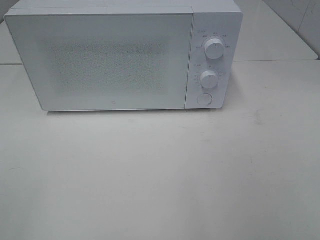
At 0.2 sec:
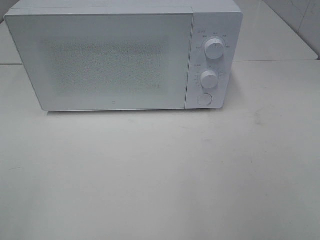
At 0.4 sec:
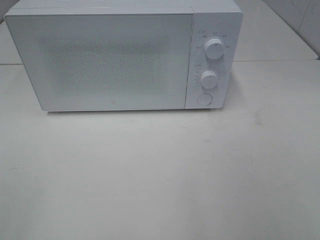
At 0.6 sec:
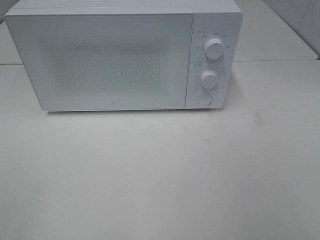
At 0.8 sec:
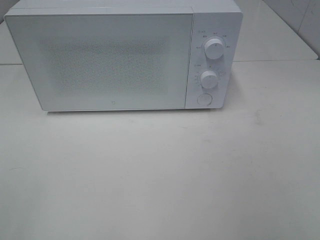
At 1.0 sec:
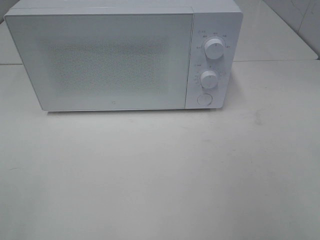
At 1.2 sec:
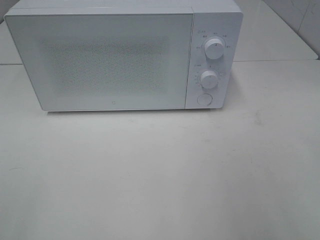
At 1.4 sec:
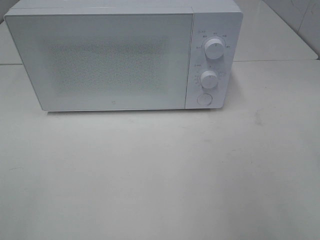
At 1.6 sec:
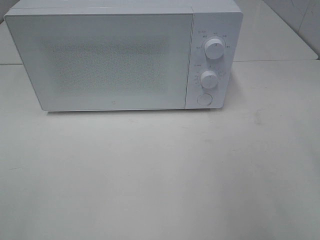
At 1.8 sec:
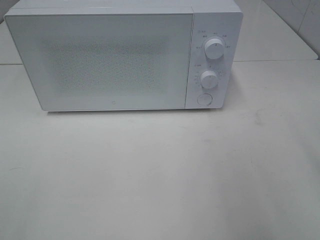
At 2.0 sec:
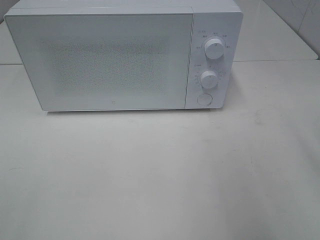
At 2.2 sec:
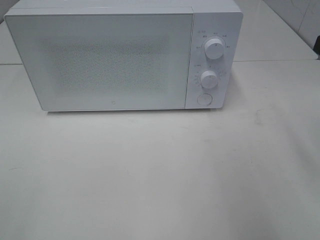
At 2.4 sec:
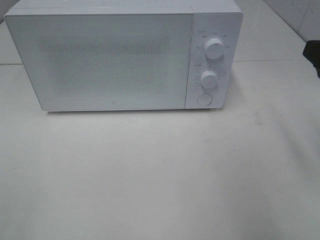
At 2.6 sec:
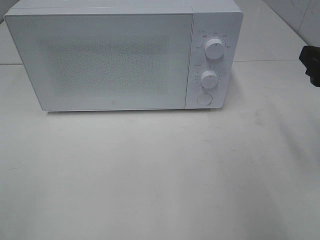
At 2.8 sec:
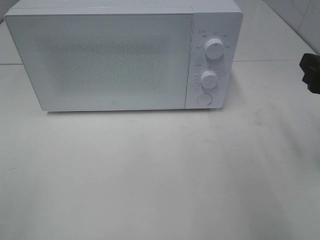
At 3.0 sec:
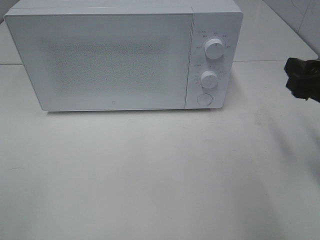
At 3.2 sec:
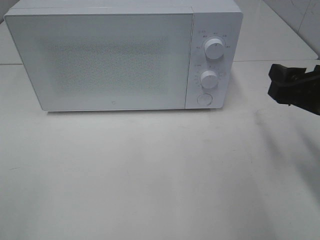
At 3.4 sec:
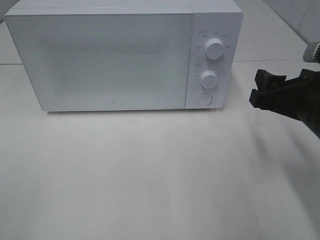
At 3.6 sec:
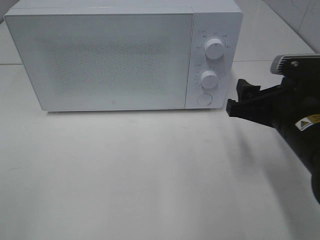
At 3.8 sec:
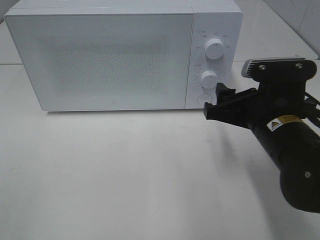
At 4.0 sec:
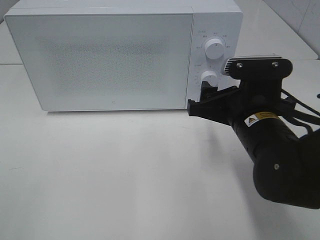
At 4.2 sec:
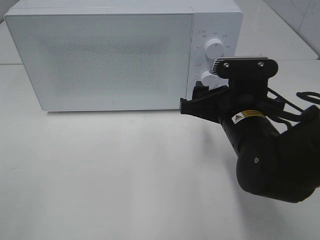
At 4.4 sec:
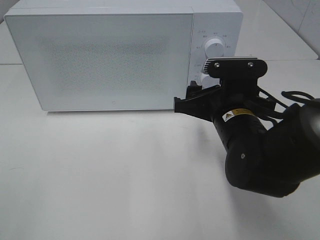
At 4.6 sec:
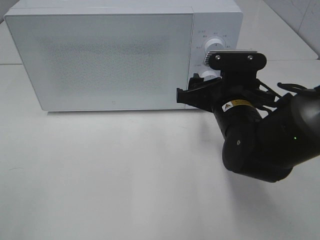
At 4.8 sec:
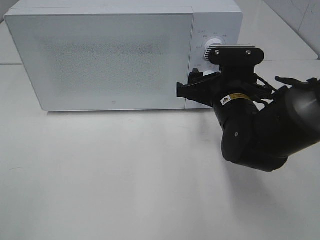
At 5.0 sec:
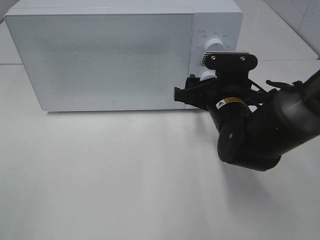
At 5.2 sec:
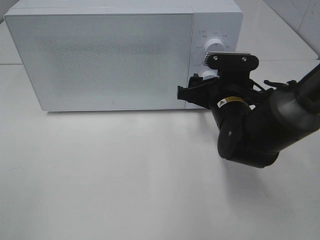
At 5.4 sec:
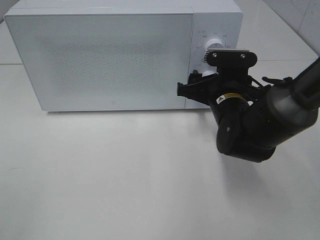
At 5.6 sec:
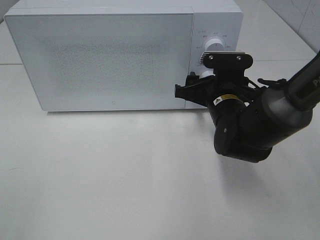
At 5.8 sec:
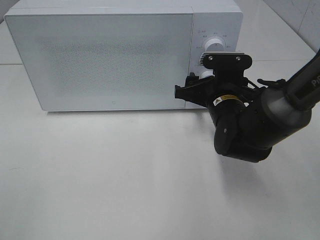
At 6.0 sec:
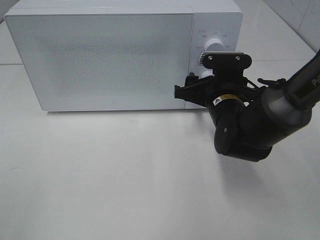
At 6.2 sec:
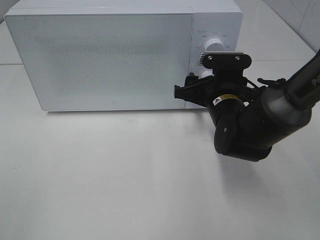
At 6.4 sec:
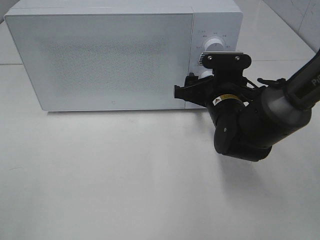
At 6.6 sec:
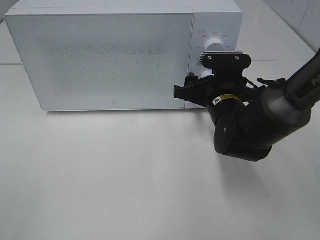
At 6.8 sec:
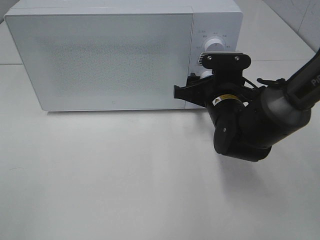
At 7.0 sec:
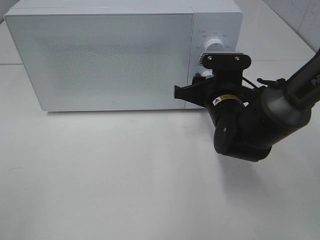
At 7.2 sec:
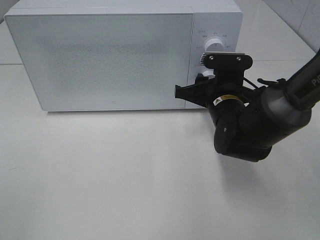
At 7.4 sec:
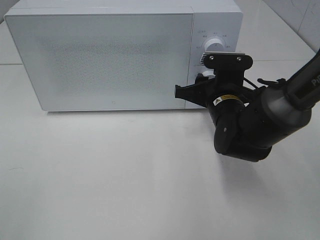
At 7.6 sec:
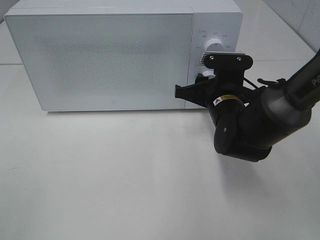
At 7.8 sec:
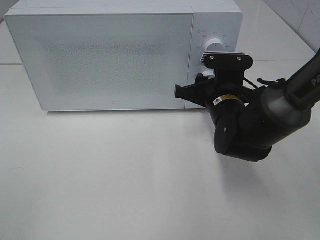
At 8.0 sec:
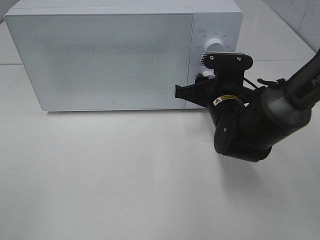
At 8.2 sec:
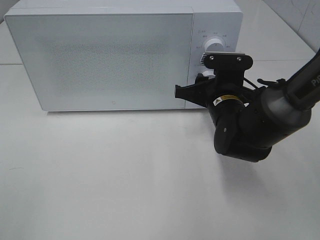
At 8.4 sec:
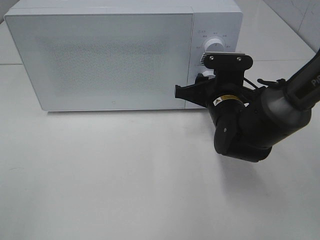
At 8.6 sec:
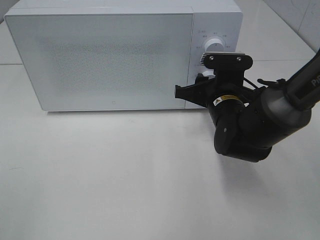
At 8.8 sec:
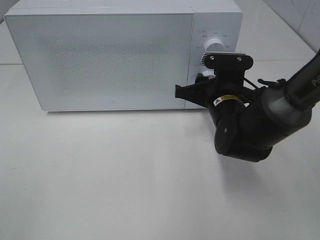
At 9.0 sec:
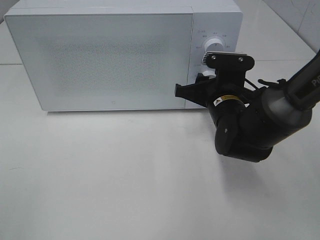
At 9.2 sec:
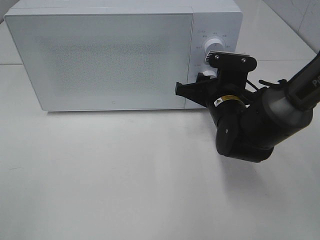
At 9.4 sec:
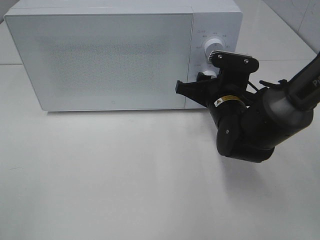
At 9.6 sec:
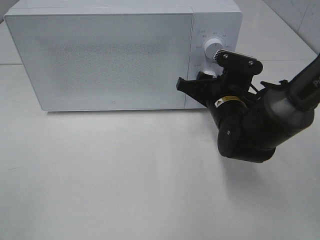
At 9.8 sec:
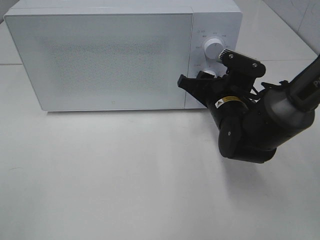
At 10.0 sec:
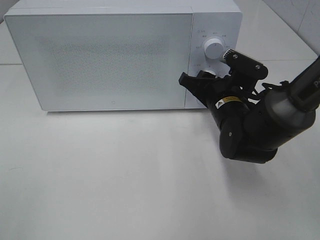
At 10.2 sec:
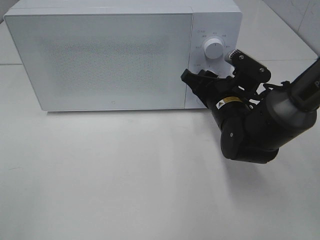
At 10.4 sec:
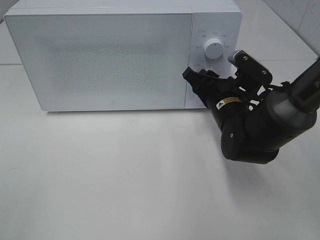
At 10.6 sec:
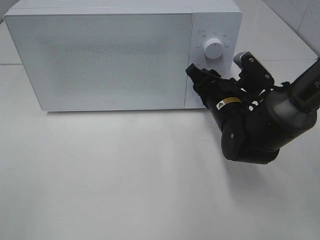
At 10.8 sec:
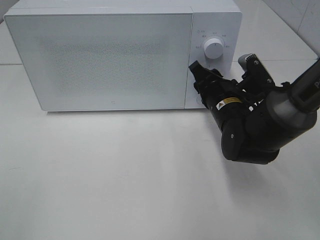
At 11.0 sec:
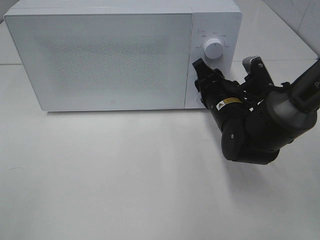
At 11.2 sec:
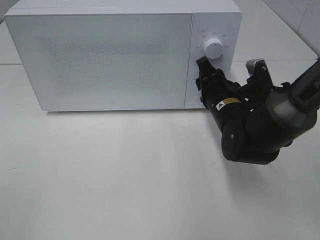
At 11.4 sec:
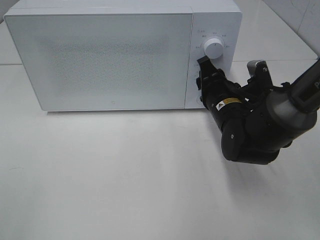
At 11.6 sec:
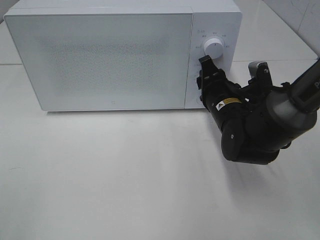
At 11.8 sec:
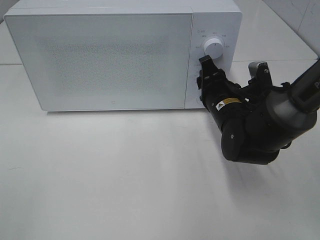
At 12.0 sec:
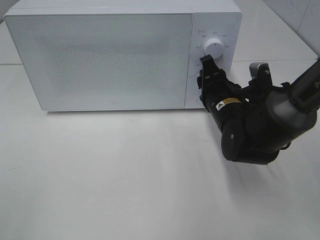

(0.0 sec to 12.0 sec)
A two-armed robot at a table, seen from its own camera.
Task of the whole recording: Heat the burger.
1.6 sec - 3.0 sec: The right gripper travels downward and forward by roughly 15 cm.
3.0 sec - 4.4 sec: The right gripper goes about 15 cm to the left and downward.
4.4 sec - 6.0 sec: The right gripper heads forward, covering some 5 cm.
6.0 sec - 7.6 sec: The right gripper closes up.
7.6 sec - 9.0 sec: Both grippers stay put.

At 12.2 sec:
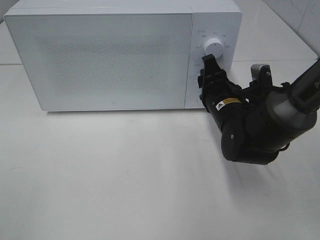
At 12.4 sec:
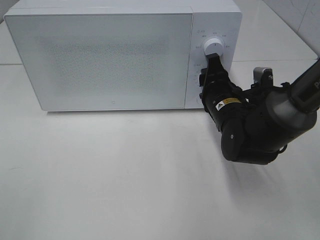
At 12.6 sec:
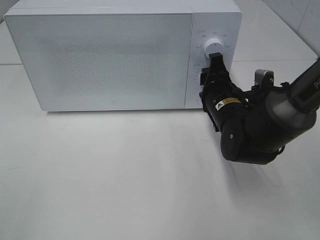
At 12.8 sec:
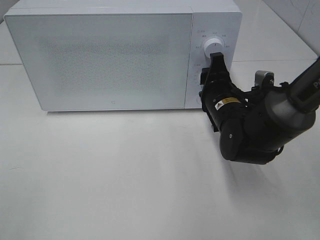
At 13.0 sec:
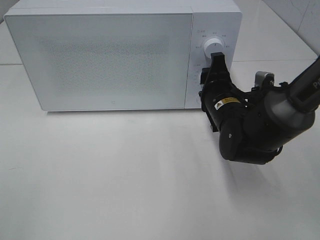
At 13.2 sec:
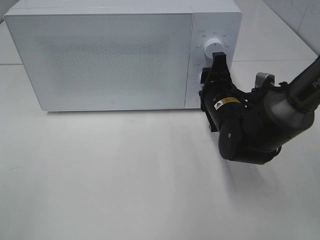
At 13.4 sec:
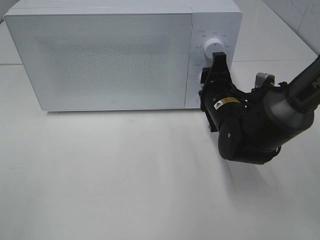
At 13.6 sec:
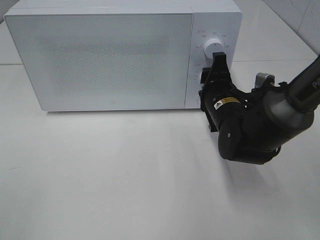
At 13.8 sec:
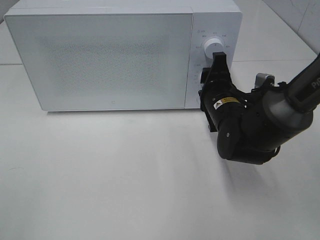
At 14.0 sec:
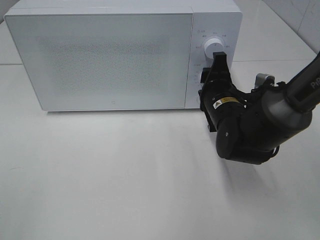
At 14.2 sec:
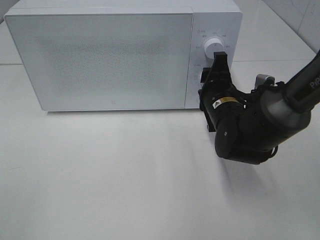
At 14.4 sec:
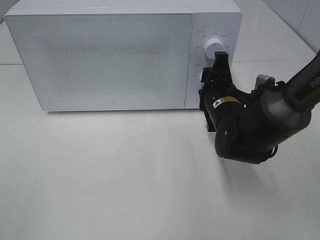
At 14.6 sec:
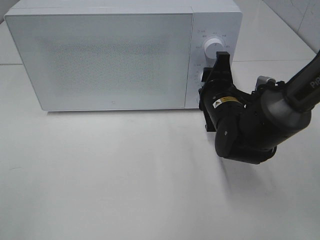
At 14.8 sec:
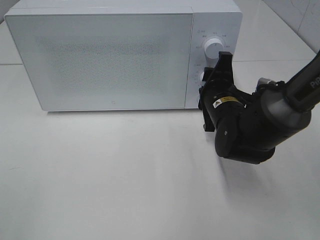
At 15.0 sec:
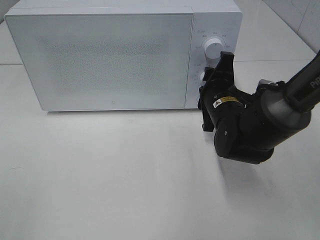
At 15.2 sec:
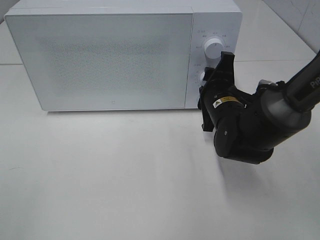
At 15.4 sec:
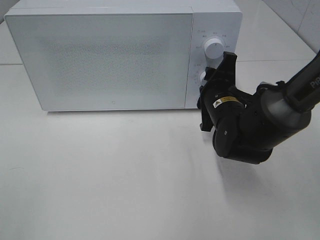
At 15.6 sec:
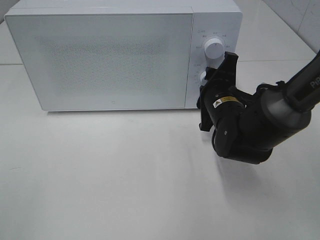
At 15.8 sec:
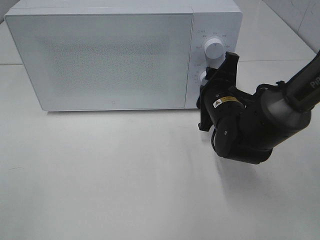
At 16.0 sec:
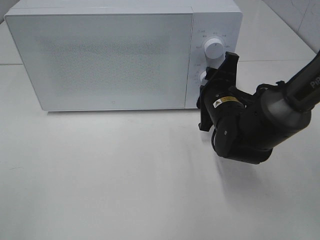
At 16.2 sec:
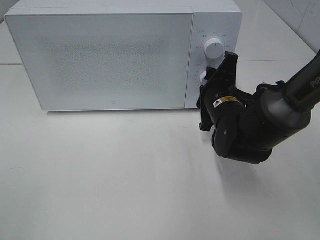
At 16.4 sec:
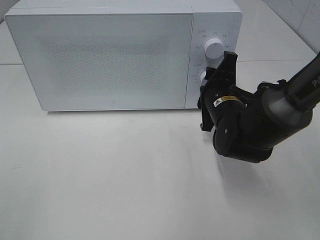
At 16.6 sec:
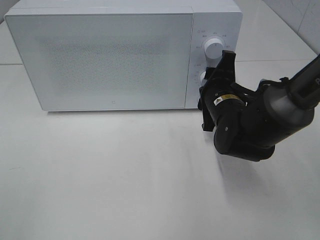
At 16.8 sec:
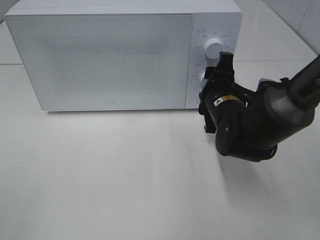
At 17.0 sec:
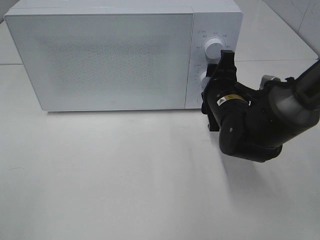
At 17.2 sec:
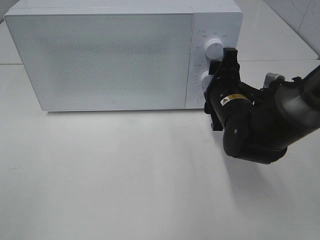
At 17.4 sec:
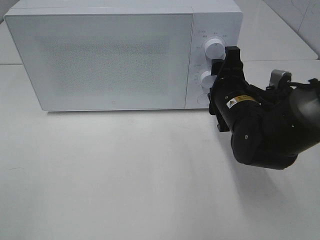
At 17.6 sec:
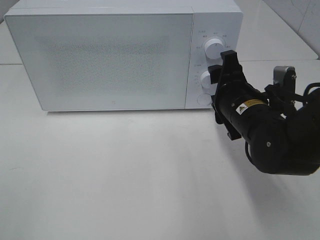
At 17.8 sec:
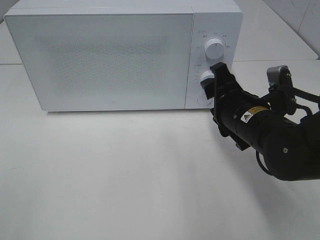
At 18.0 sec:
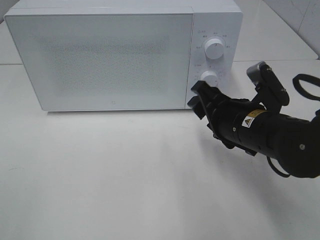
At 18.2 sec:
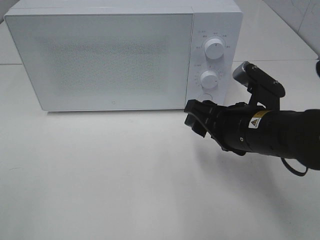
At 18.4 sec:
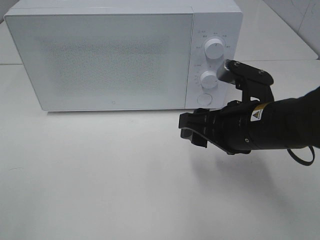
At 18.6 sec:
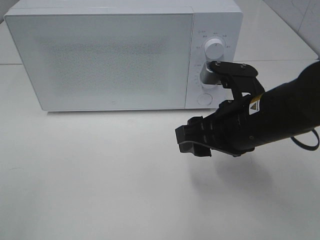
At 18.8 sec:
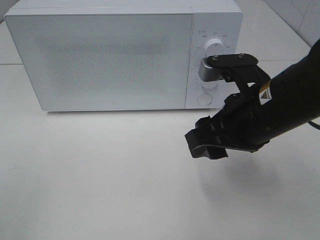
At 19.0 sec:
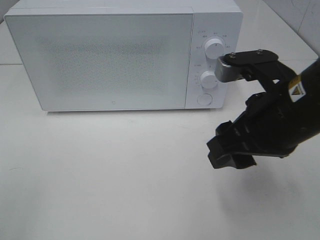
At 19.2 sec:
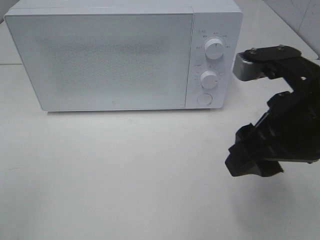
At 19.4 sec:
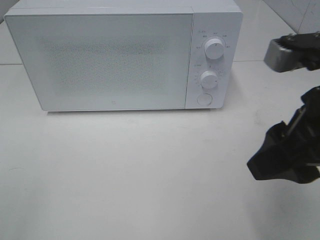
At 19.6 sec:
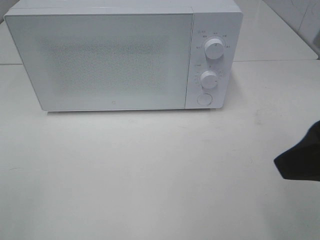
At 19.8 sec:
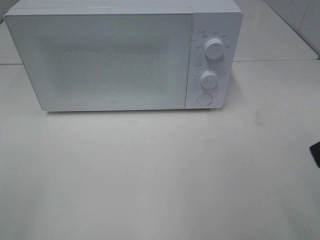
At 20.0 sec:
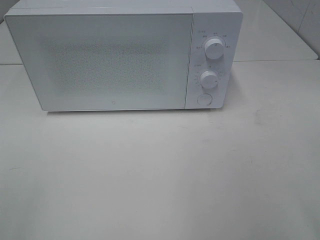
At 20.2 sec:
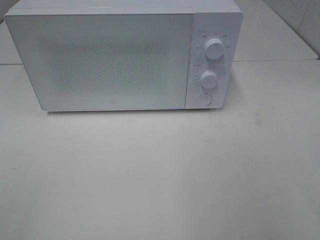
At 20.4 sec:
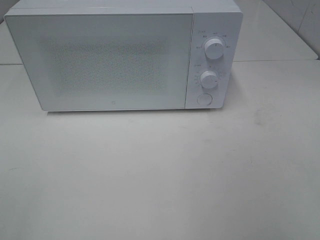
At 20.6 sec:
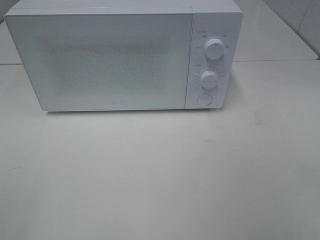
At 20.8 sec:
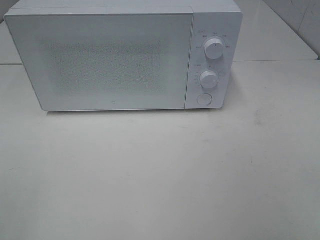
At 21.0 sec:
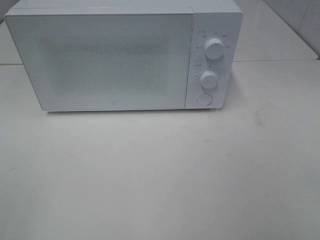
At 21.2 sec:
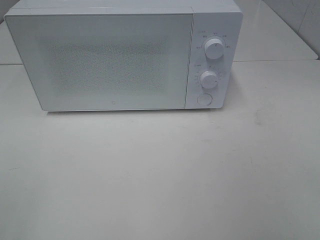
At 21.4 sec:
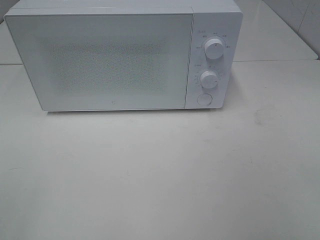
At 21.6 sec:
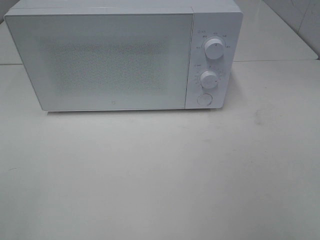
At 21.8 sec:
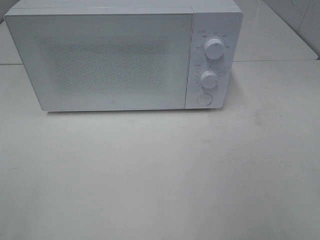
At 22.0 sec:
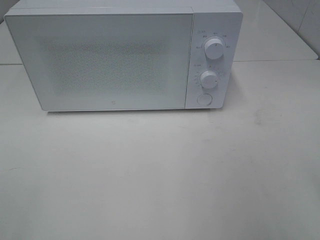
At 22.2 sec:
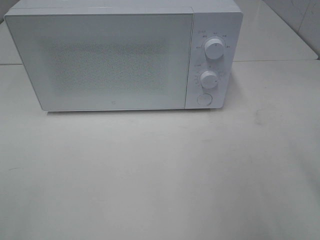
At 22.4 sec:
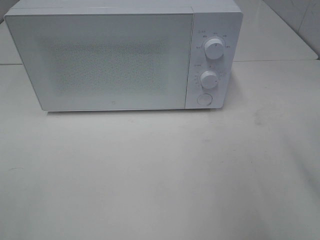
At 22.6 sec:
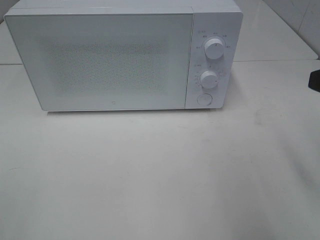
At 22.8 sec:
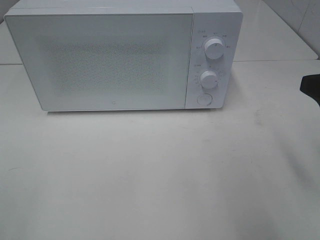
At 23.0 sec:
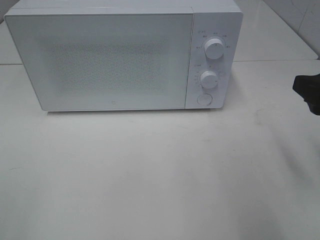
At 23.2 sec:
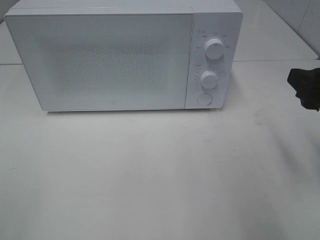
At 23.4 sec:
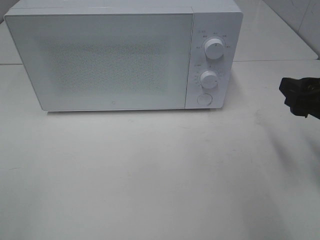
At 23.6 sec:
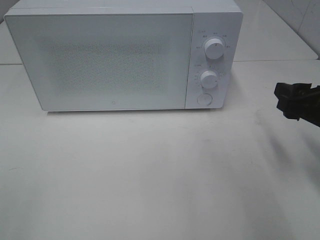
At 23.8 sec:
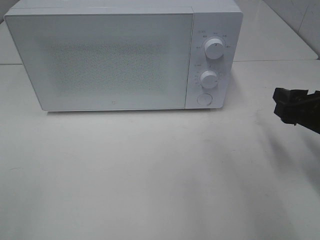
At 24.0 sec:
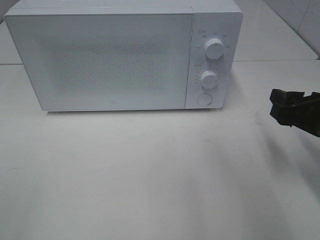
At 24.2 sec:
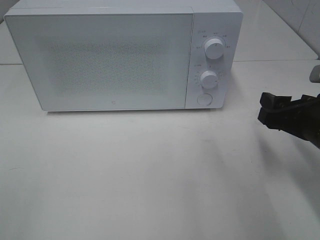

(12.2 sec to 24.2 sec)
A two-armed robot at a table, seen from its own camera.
Task of the whole recording: Heat the burger.
Step, 12.2 sec - 17.6 sec: Right hand: twist timer button.
12.2 sec - 13.8 sec: The grippers stay close to where they were, moving slightly.
13.8 sec - 16.6 sec: There are only small adjustments of the grippers.
16.6 sec - 18.2 sec: The right gripper travels backward by about 10 cm.
18.2 sec - 19.8 sec: The right gripper travels upward, backward and to the right by roughly 25 cm.
22.6 sec - 24.2 sec: The right gripper is displaced downward and forward by approximately 10 cm.
